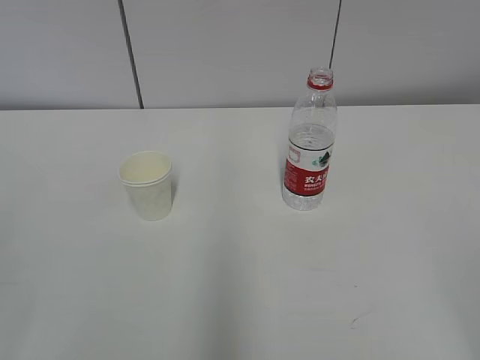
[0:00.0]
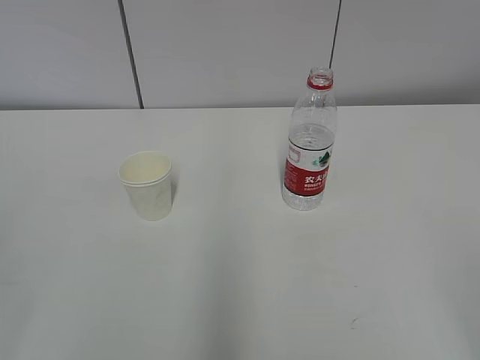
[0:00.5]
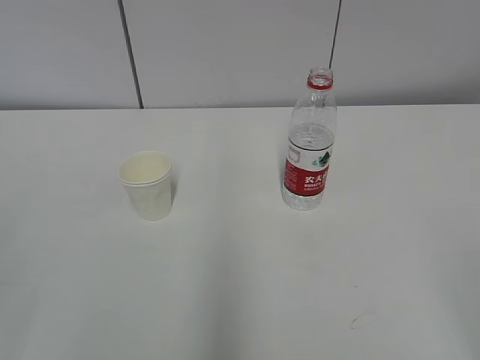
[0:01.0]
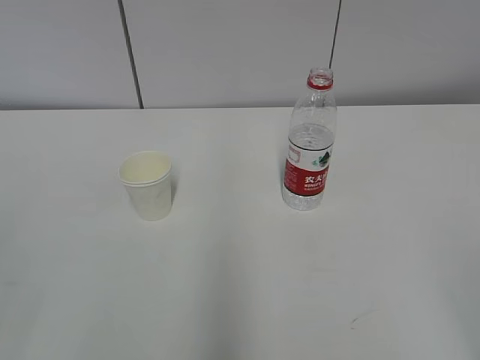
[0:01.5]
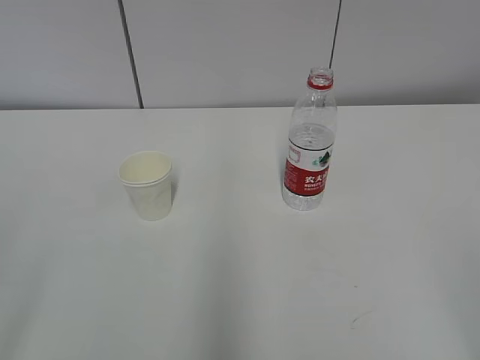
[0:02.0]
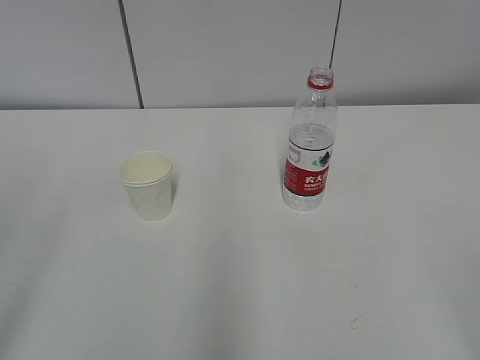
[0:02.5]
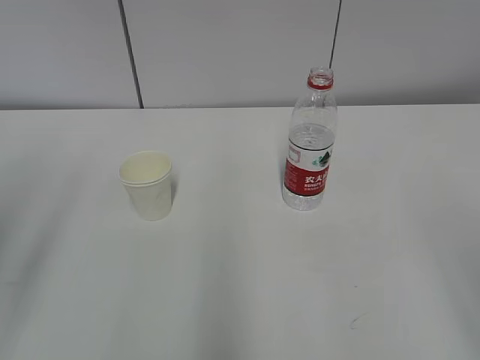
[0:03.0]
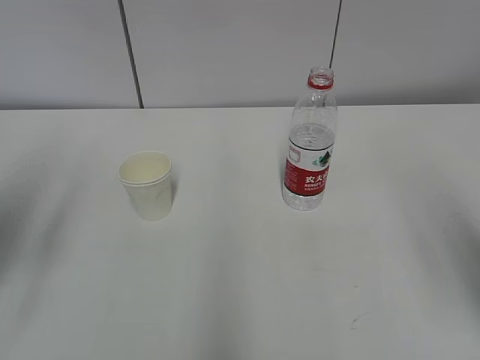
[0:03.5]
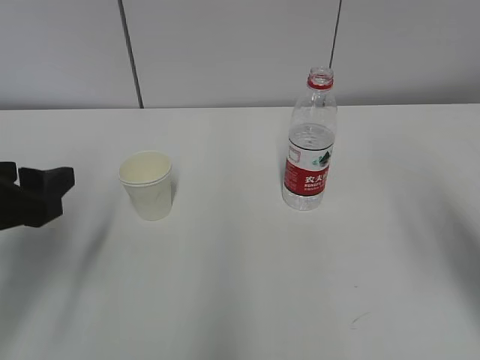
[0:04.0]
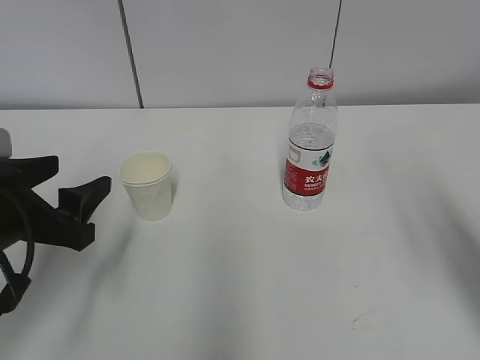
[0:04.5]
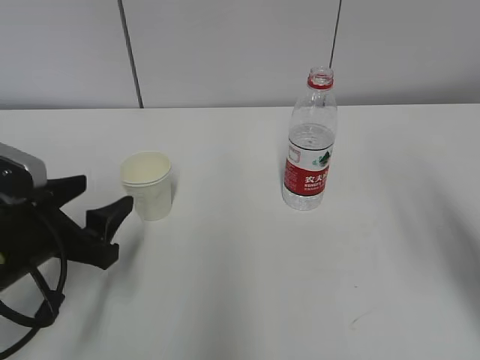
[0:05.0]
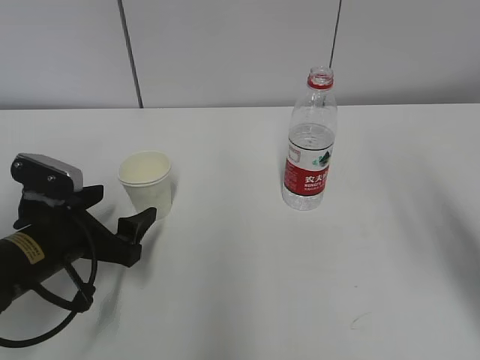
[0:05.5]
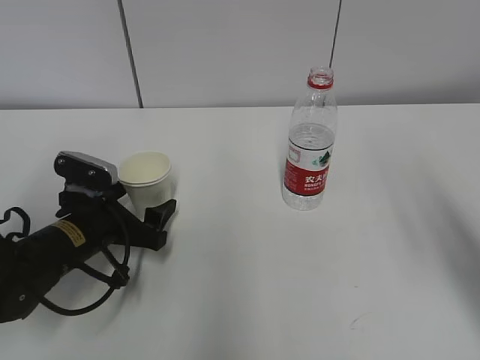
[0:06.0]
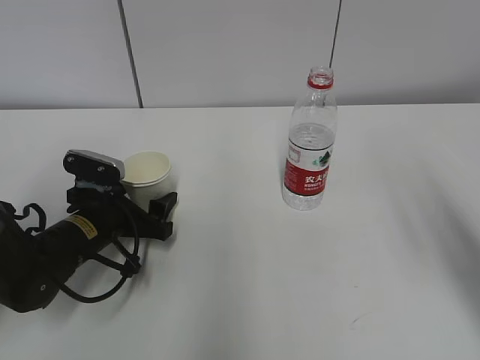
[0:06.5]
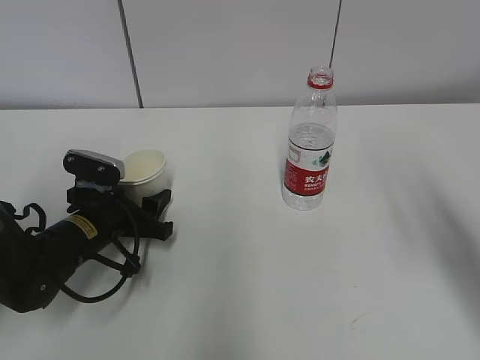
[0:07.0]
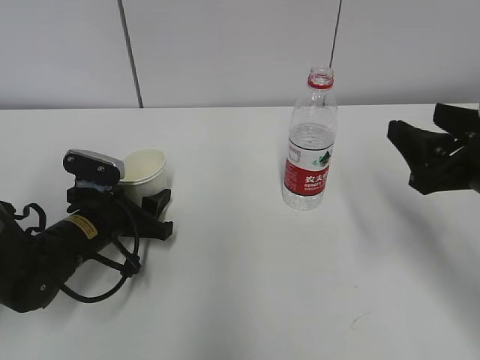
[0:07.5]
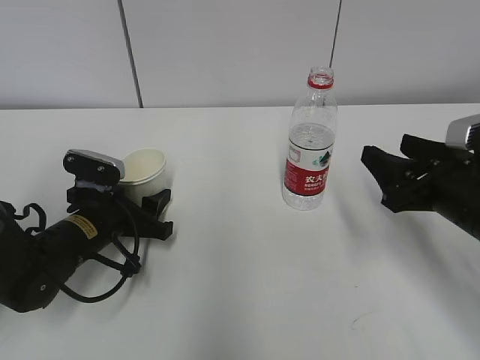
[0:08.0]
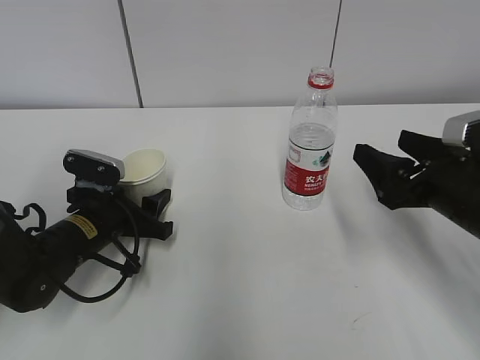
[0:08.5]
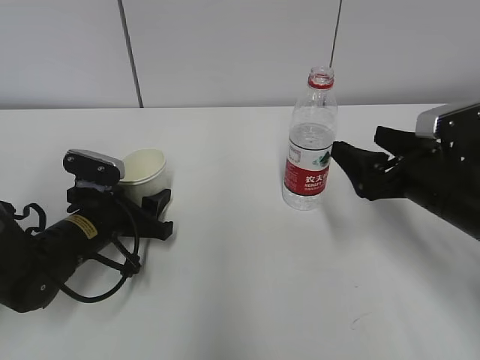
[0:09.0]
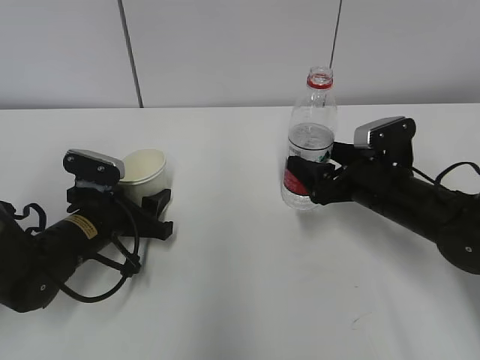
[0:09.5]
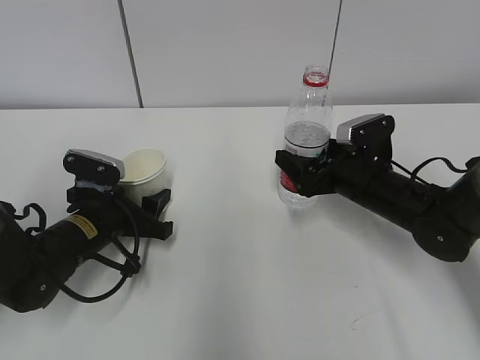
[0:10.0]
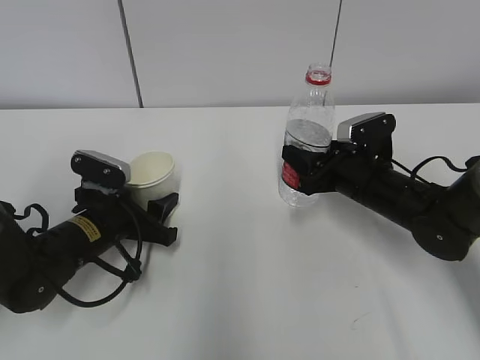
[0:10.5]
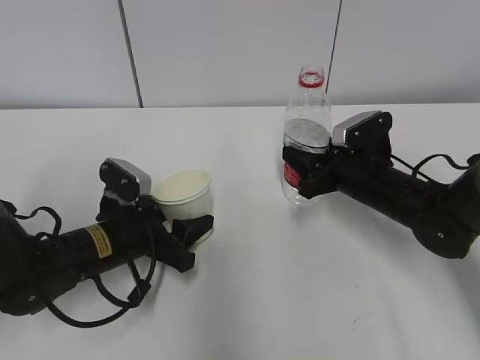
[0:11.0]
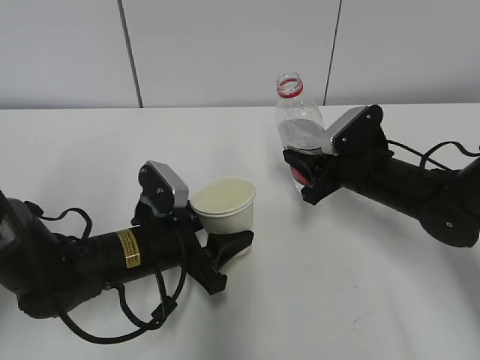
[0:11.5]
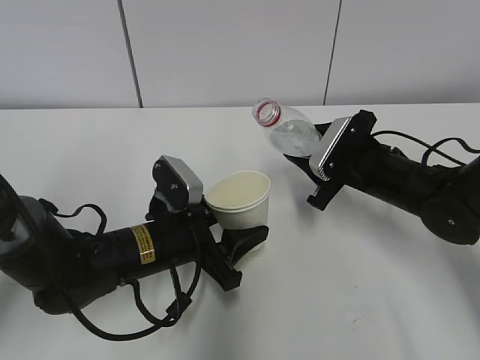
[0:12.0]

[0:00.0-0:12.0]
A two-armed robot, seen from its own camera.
Step, 0:00.0 to 0:05.5: Grab the paper cup with the left hand.
Step, 0:06.0 to 0:08.5: Grab the water bottle with the right hand.
Step, 0:09.0 to 0:11.5: Lift the paper cup with the left hand.
0:02.0 to 0:04.0: The two grippers go approximately 20 cm forward.
0:04.0 to 0:06.0: The left gripper travels downward, forward and to the right by some 15 cm.
0:06.0 to 0:08.0: The left gripper closes. The right gripper heads downward and forward, covering approximately 15 cm.
0:08.0 to 0:10.0: The right gripper is displaced forward, downward and to the left by roughly 15 cm, and opens its fingers.
0:10.0 to 0:12.0: The left gripper moves to the right, about 10 cm. The right gripper closes its fingers.

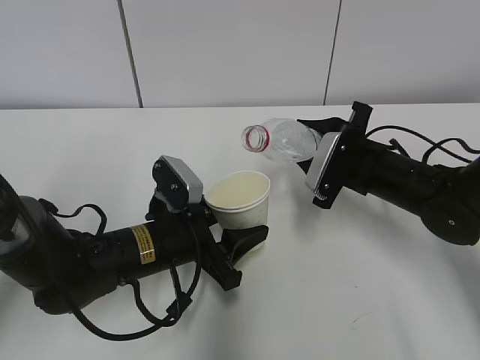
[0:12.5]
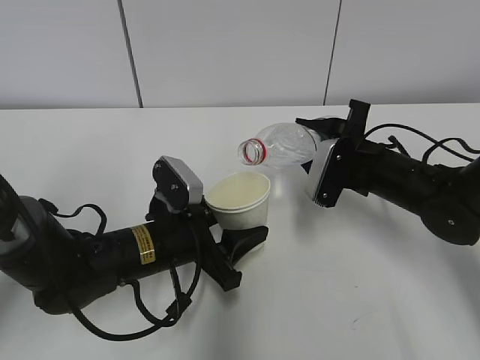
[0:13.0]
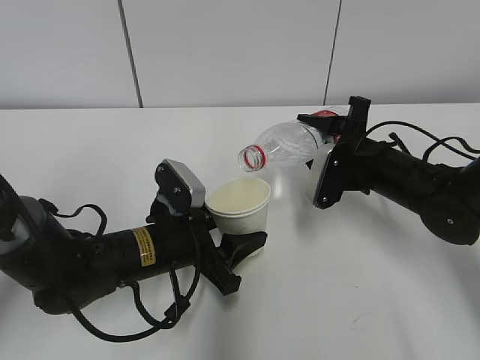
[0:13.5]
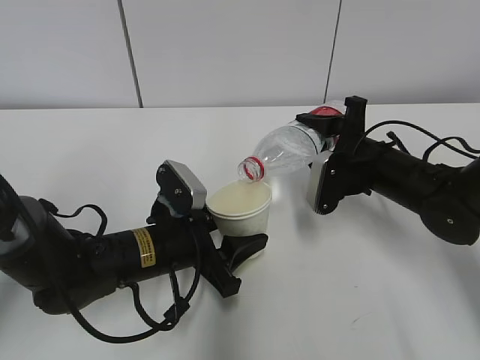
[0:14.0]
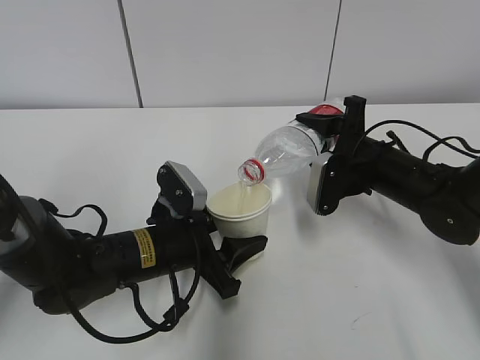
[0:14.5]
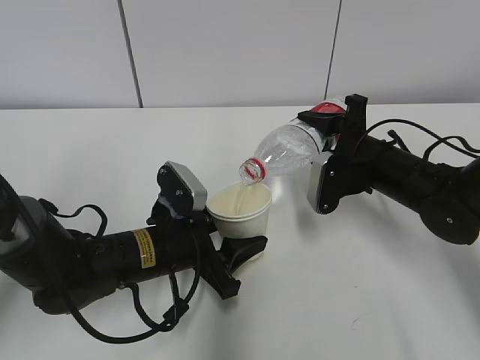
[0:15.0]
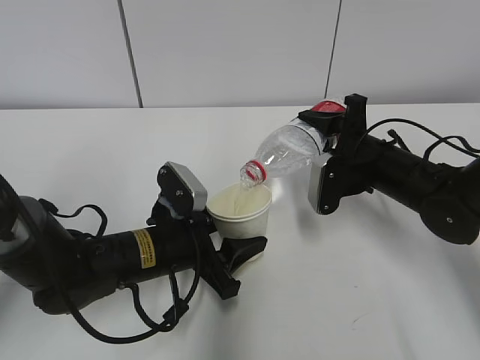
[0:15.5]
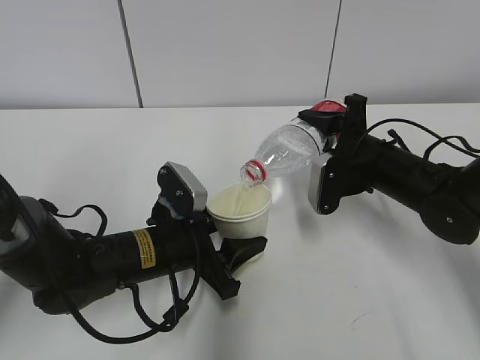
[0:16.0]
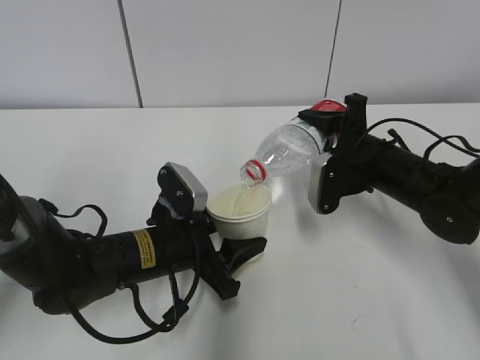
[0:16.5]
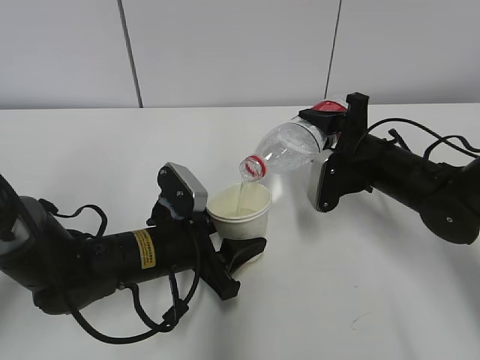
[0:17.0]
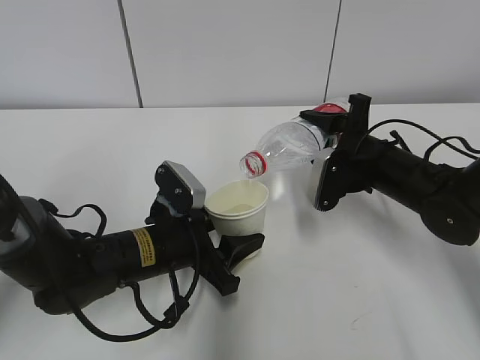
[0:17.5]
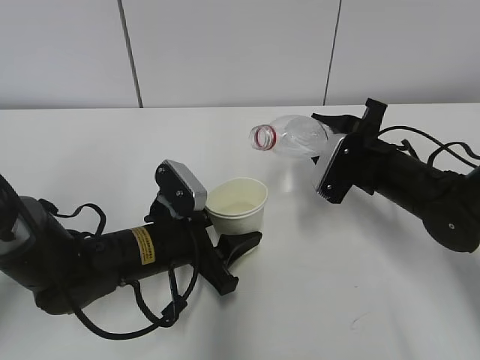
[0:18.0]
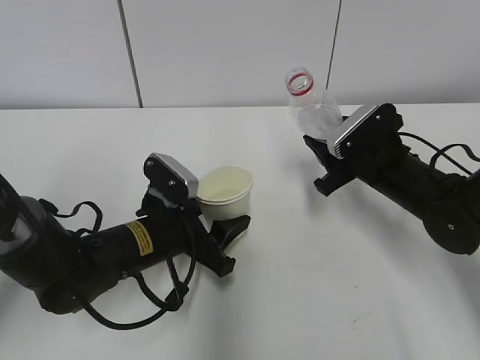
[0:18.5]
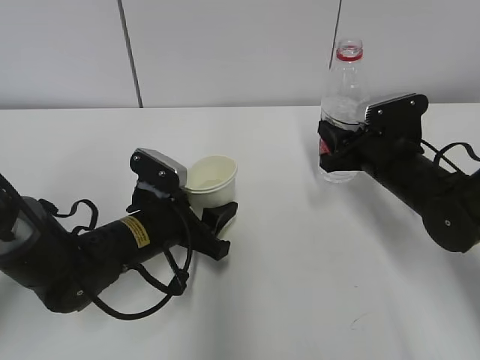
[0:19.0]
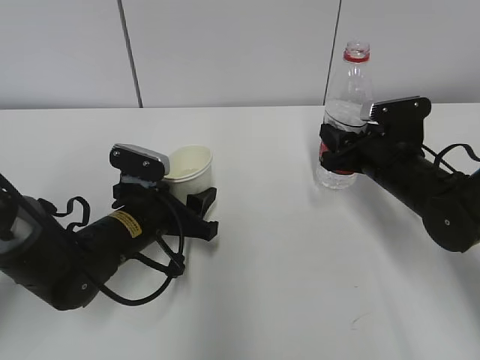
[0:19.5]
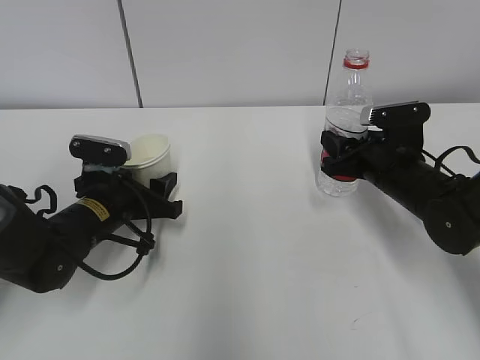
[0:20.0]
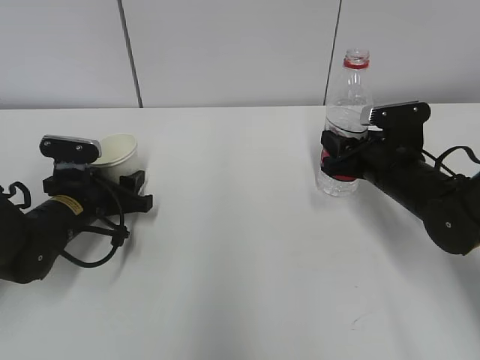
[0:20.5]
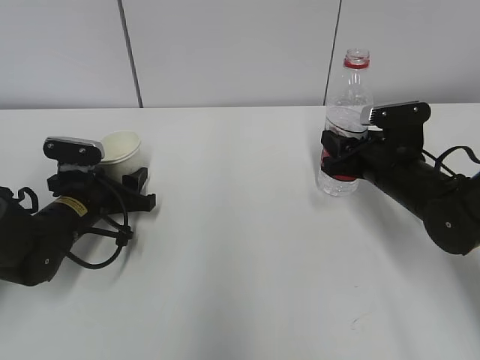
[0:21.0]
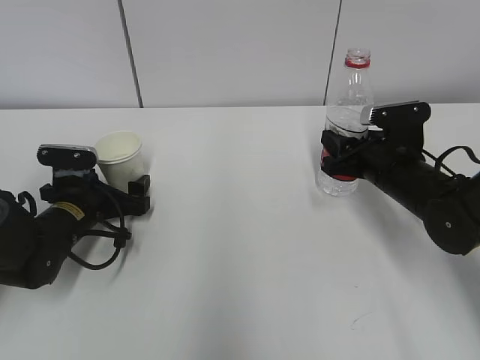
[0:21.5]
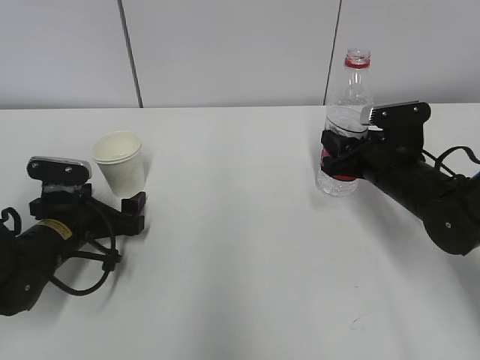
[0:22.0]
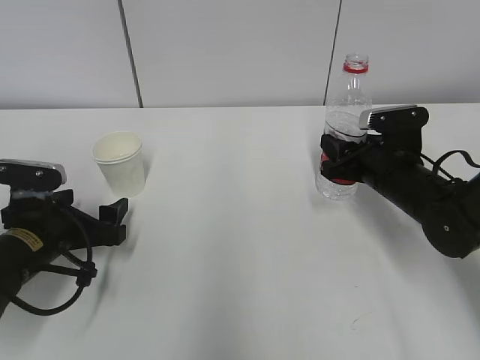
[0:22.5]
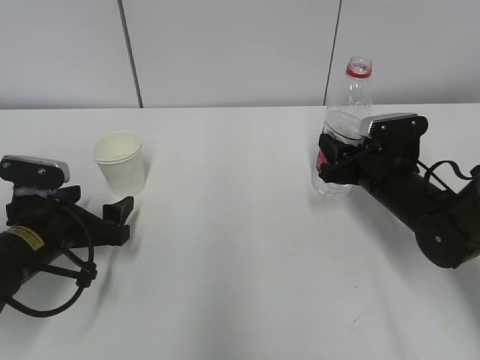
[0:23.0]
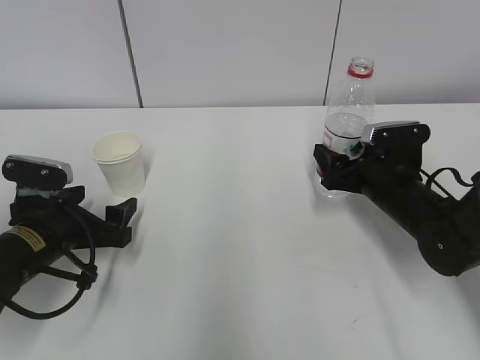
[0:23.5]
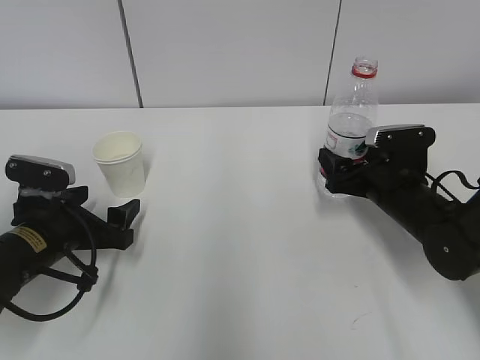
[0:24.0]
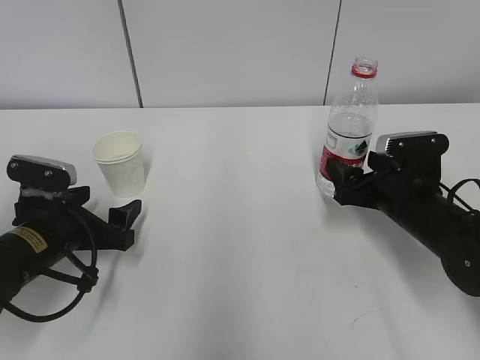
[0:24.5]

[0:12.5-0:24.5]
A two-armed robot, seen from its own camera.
Step, 0:12.5 to 0:14.5: Fill water with the left hand.
Step, 0:12.5 to 0:14.5: Pour water with the right hand.
Step, 0:16.0 to 0:17.5: Place the paper cup with the left hand.
Step, 0:18.0 to 0:20.0: Place the water bottle with the right hand.
0:14.5 to 0:16.5: Both grippers stay about where they are.
0:18.5 to 0:20.5: The left gripper shifts roughly 10 cm to the left and forward.
0:20.5 to 0:22.5: The left gripper moves backward, about 5 cm, and opens its fingers.
0:22.5 to 0:24.5: The right gripper opens.

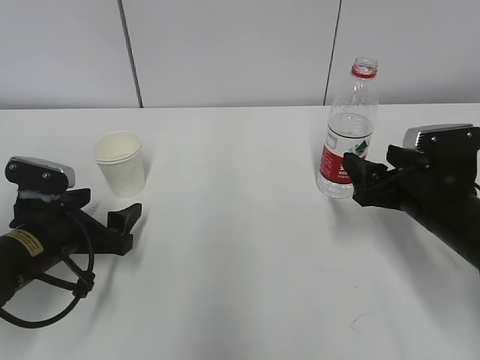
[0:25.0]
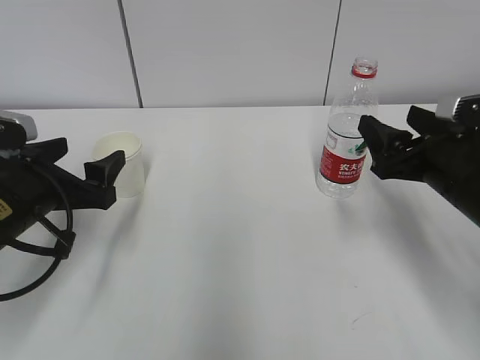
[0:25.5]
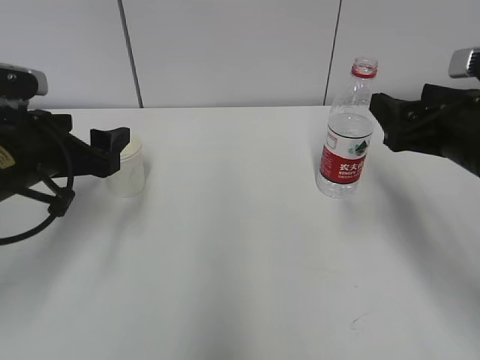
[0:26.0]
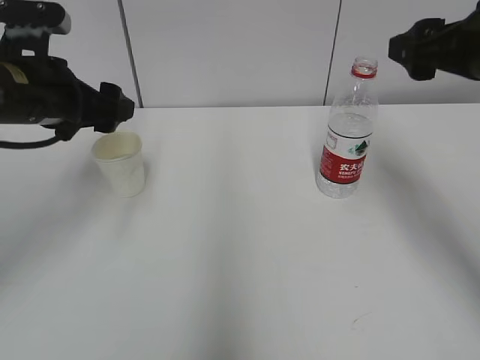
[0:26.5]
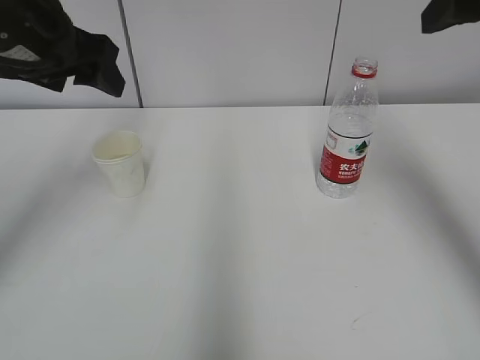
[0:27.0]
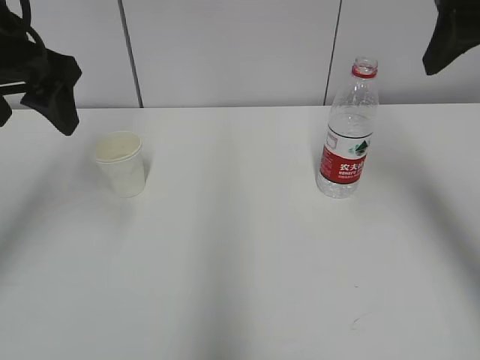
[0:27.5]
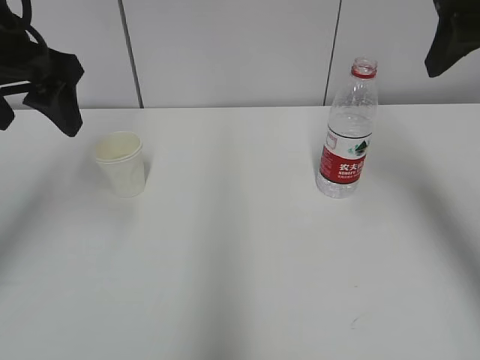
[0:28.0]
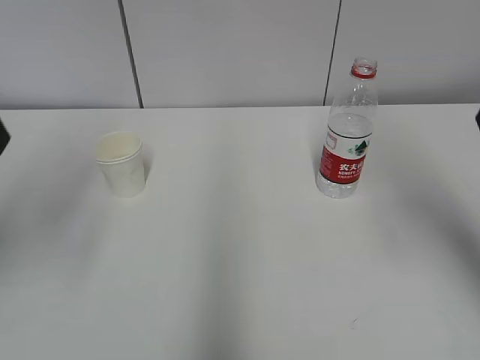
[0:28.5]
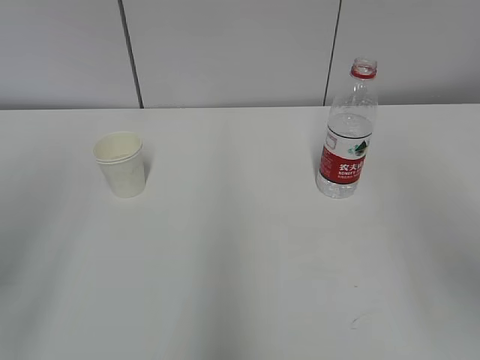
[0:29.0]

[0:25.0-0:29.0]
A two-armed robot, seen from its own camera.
0:25.0 to 0:27.0: Both grippers move upward, some 25 cm.
0:27.0 to 0:29.0: Both grippers travel together backward, about 20 cm.
